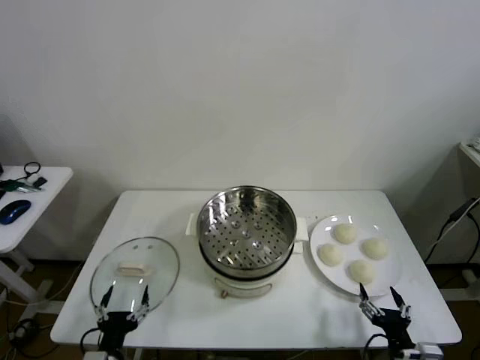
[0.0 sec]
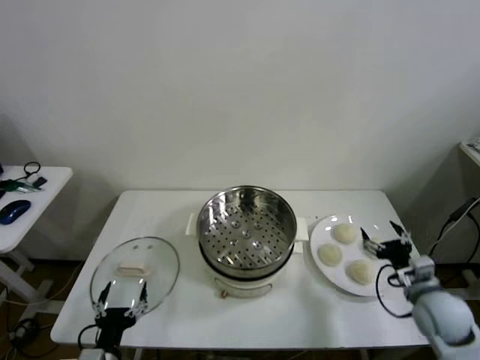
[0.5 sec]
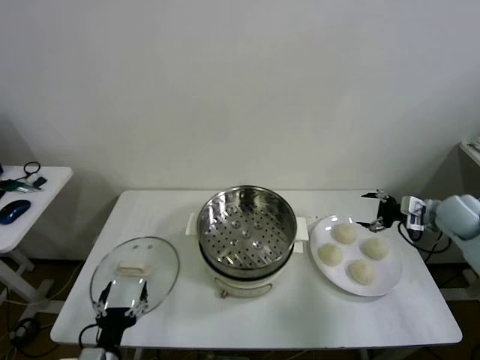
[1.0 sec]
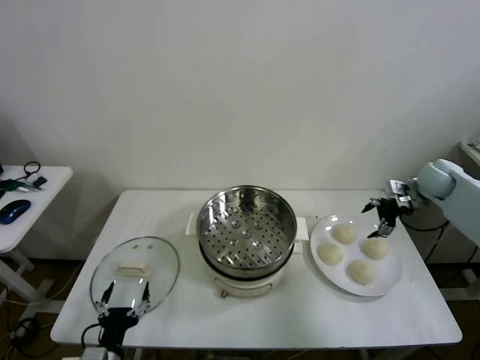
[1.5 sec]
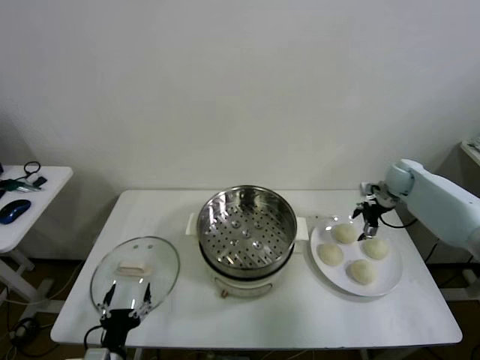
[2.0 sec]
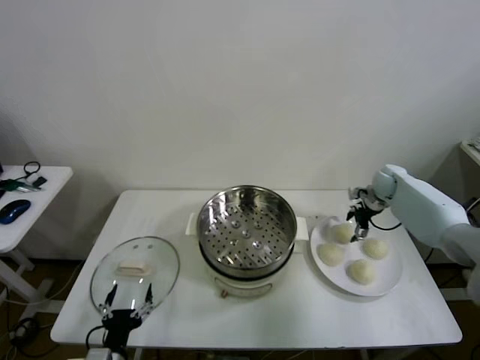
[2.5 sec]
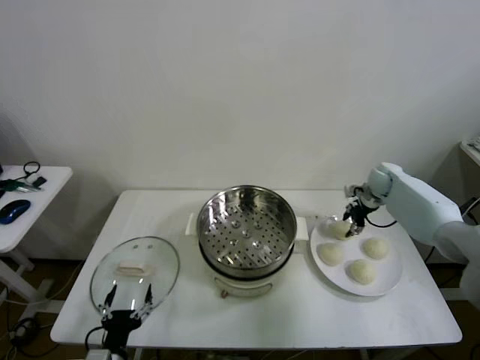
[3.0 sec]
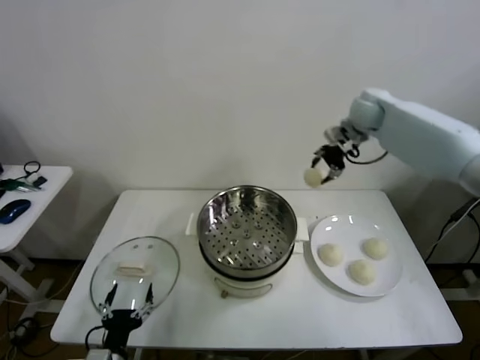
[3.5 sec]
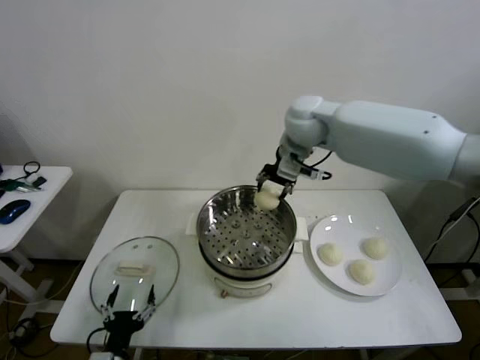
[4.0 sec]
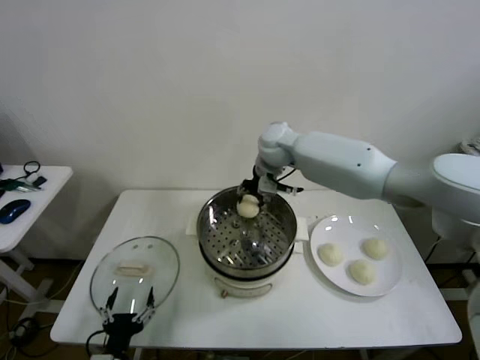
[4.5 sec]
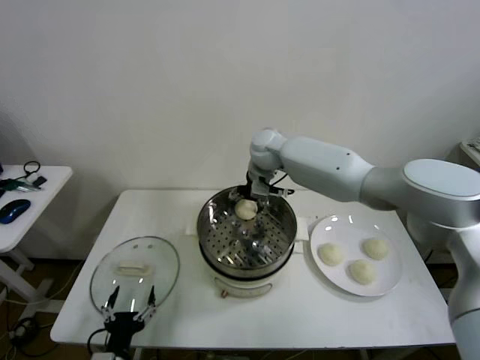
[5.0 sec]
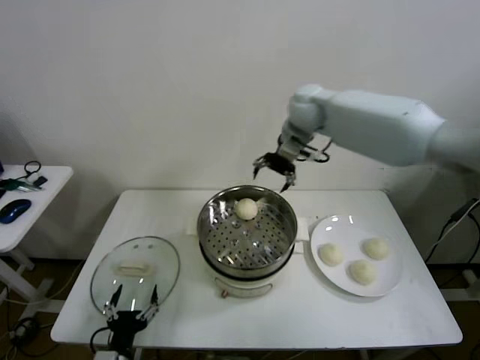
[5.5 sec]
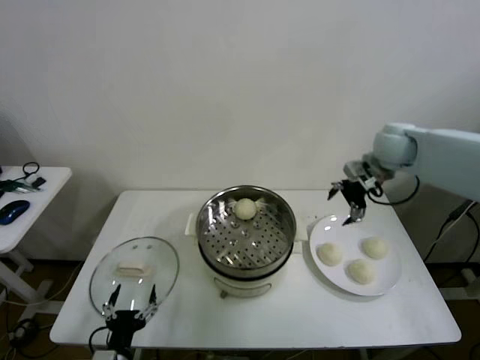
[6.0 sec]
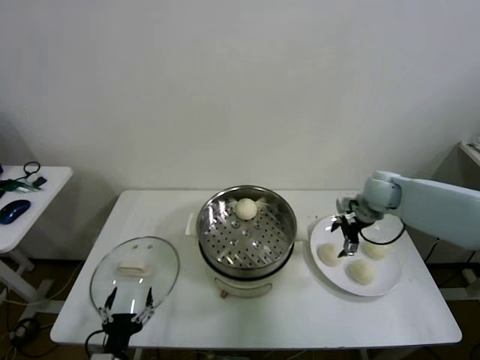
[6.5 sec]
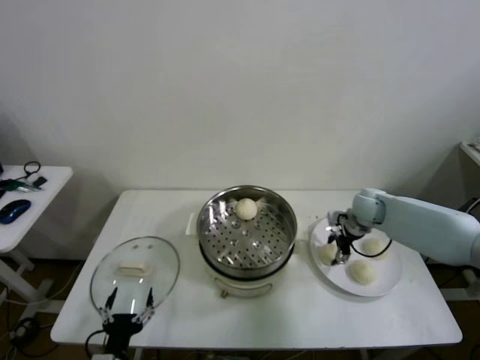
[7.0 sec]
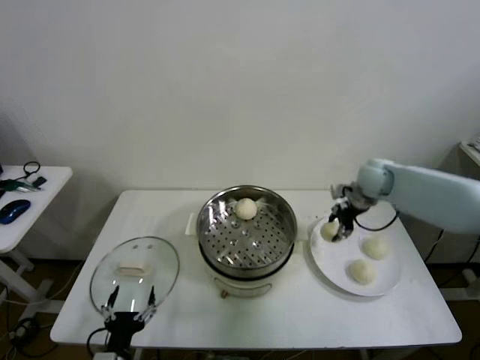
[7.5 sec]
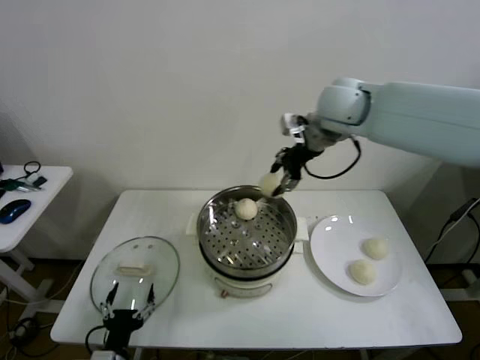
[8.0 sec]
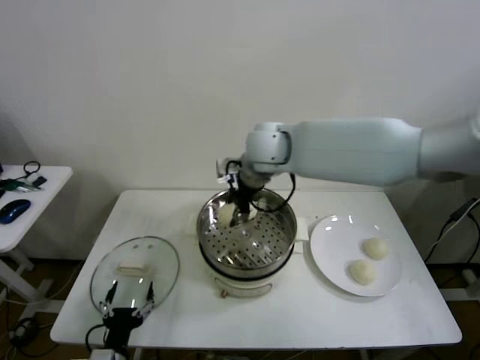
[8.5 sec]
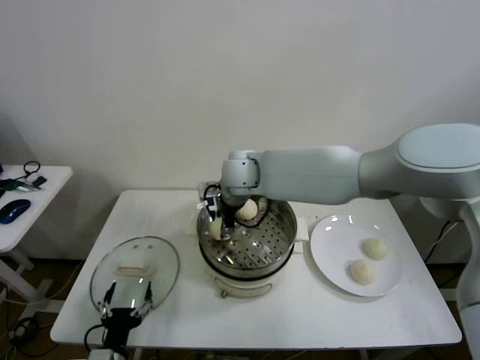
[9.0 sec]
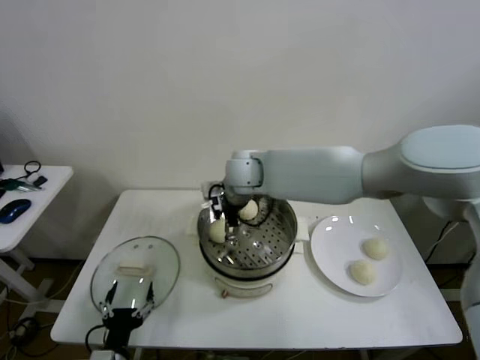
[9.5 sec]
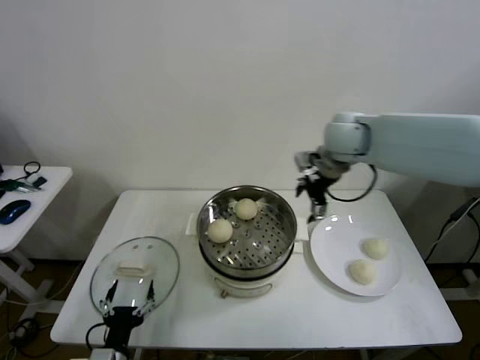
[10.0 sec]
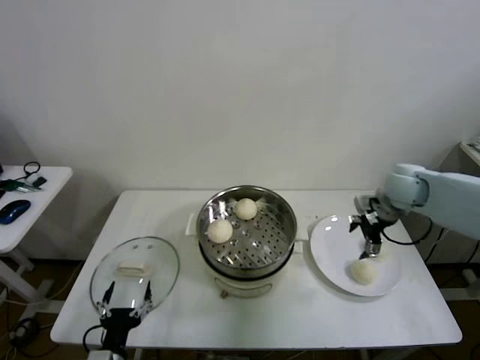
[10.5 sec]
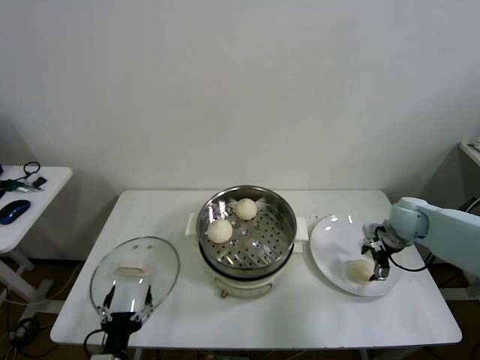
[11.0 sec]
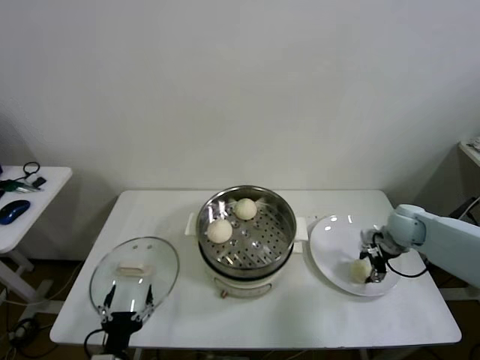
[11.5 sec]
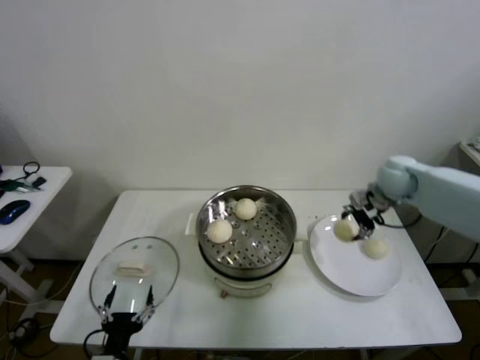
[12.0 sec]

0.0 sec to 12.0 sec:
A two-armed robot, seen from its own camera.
Step, 0.0 sec to 2.5 sec: Grasp the baozi in the plate with right gripper.
Step, 3.0 sec to 4.5 sec: Place the baozi on the steamer with right gripper.
Step, 5.0 sec to 7.0 sec: Grasp the baozi in the plate with right gripper.
Step, 7.5 sec to 9.0 sec: Place the baozi on the steamer with right gripper.
Step, 9.5 sec to 11.5 sec: Grasp the baozi in the plate with right gripper.
2.0 sec to 4.0 sec: The right gripper is displaced to the left and upward by some 35 cm, and closes up.
4.0 sec to 6.0 sec: The right gripper shifts roughly 20 cm to the right, and opens its fingers.
6.0 sec to 8.0 sec: The right gripper is displaced to the left and upward by roughly 25 cm, and closes.
8.0 sec to 10.0 sec: The right gripper moves to the right and downward, about 10 cm, and opens.
10.0 sec to 12.0 sec: The right gripper travels to the right and downward by roughly 15 cm, and closes up.

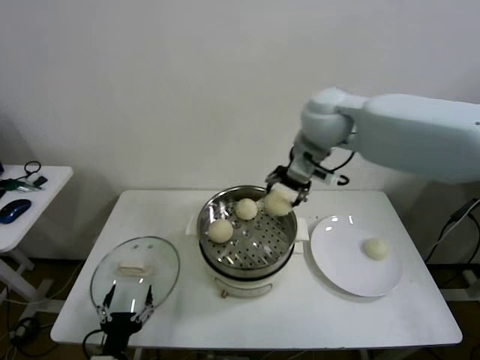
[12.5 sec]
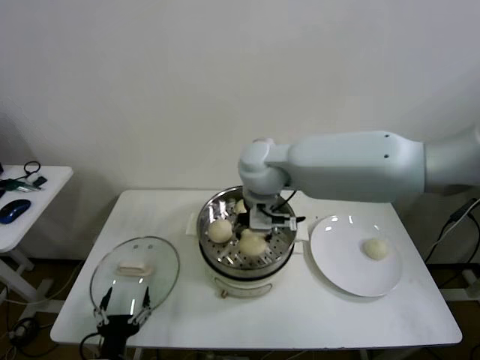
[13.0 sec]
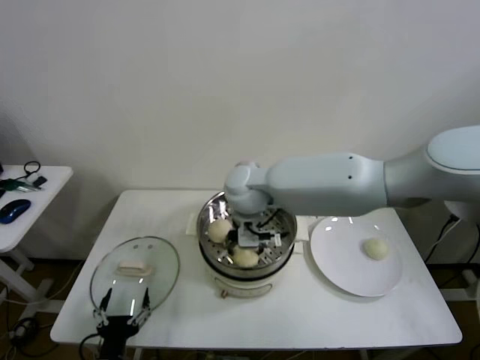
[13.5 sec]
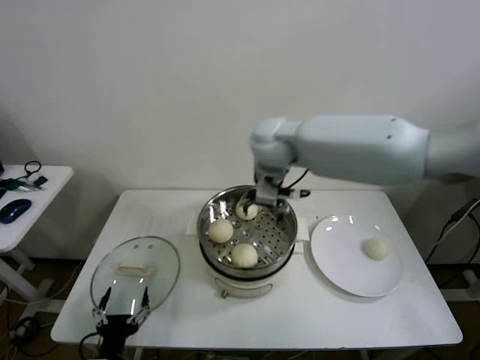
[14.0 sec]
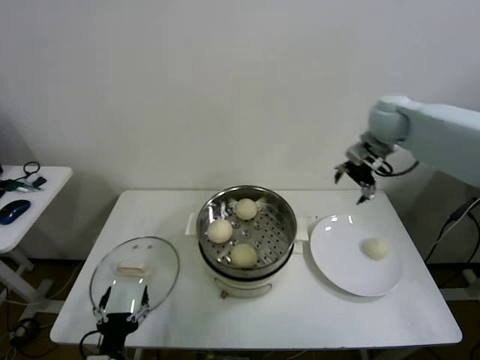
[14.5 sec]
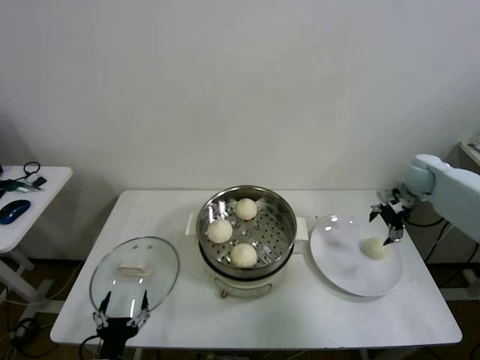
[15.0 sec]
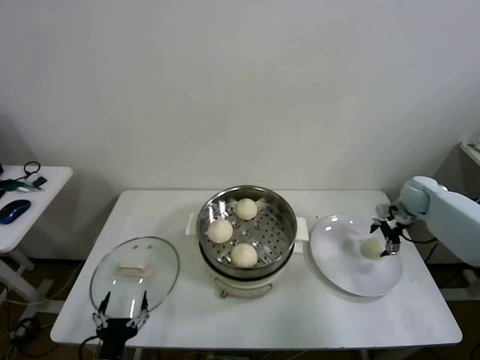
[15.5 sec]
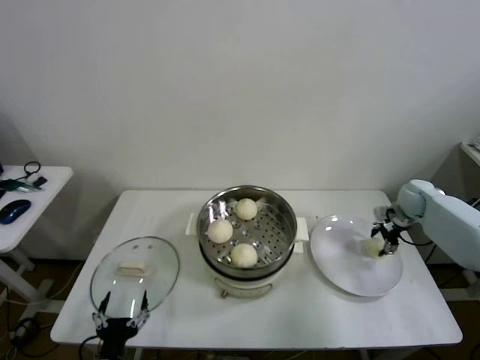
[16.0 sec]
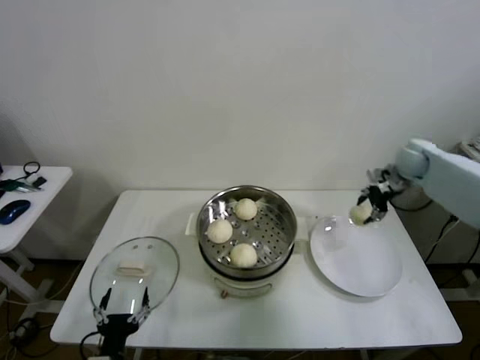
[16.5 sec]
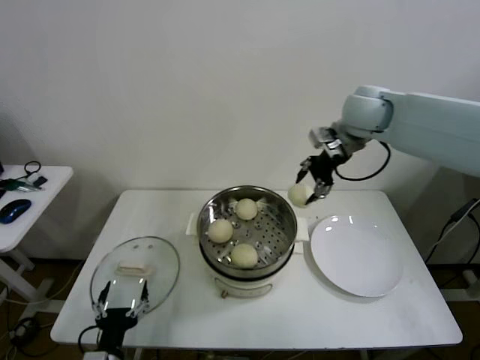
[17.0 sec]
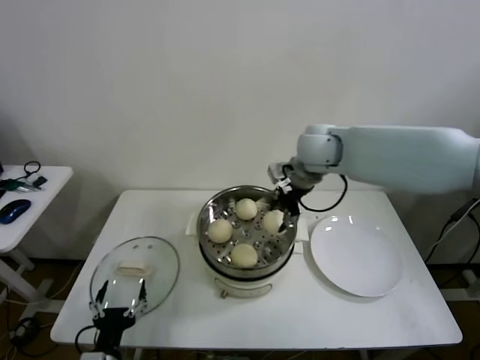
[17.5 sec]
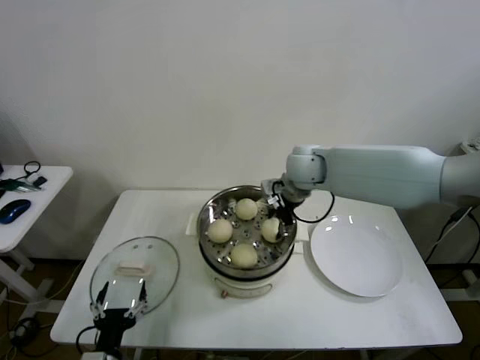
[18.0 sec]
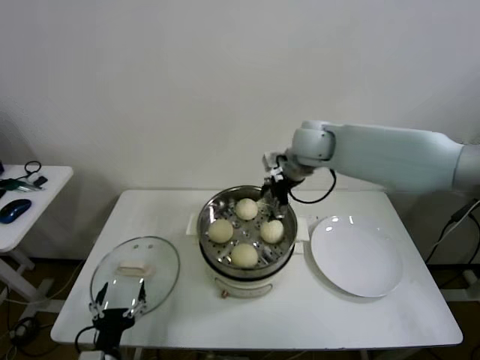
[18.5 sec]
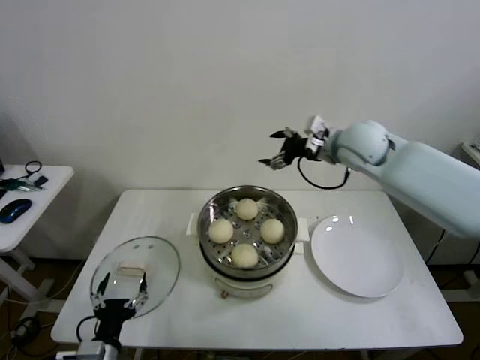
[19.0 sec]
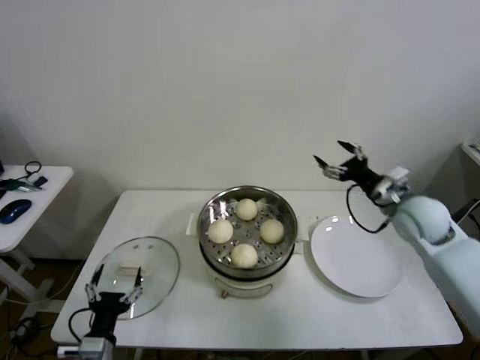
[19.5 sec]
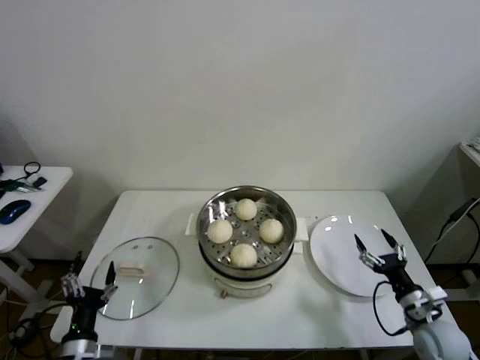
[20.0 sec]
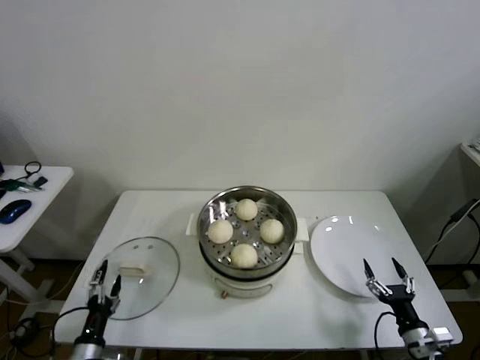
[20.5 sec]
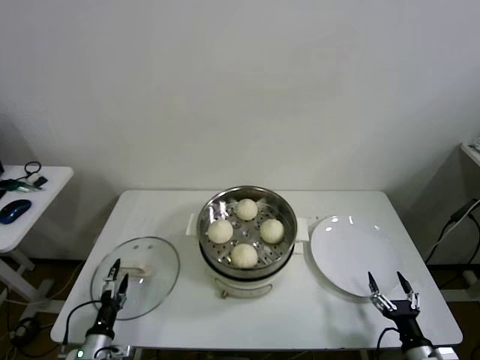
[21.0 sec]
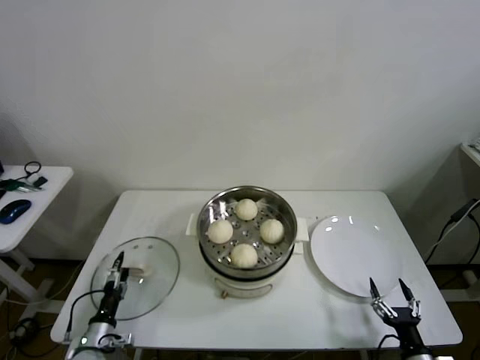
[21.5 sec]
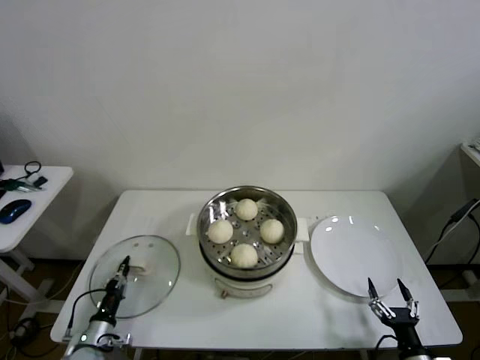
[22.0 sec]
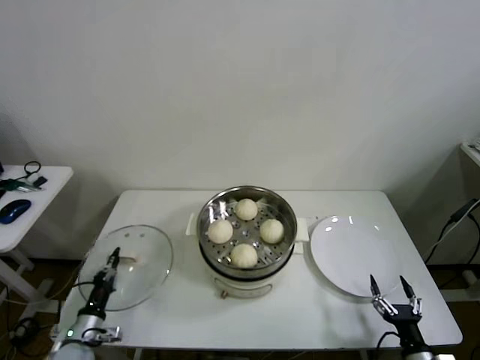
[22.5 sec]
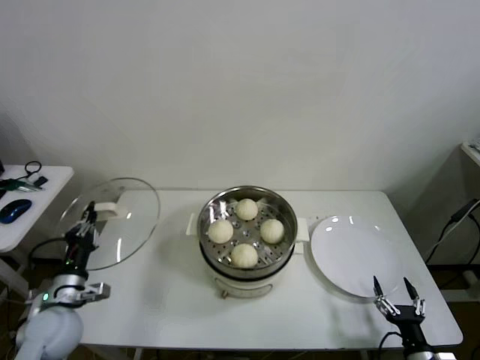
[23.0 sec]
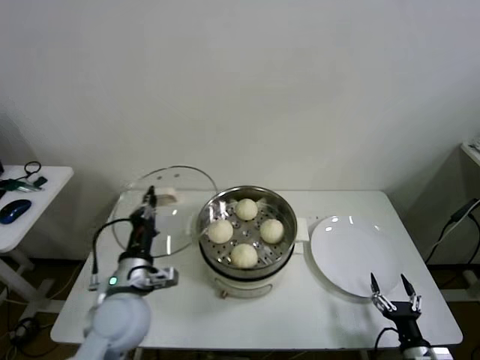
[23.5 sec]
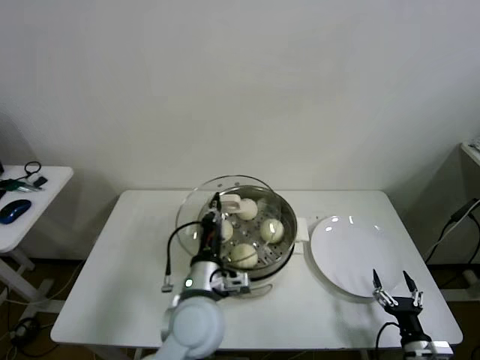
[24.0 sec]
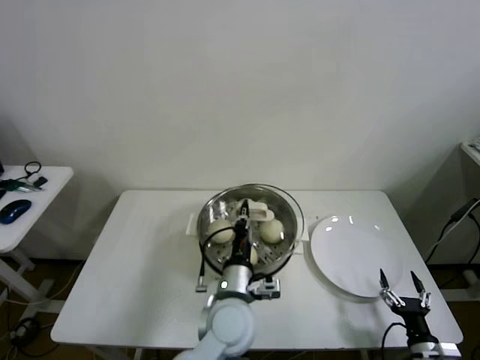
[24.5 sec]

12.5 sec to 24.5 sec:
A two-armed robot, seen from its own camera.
Step, 12.5 sec to 13.5 sec: Place the baozi on the steamer with right gripper.
Step, 14.0 sec to 16.0 sec: Grasp the baozi in the plate with right gripper.
Step, 16.5 sec to 18.0 sec: Place the baozi on the steamer with right gripper.
Step, 18.5 sec to 22.0 sec: Grasp the pot lid with left gripper.
12.5 sec to 14.5 sec: The right gripper travels to the right by some 20 cm, and opens up.
14.5 sec to 16.5 sec: The right gripper travels downward and to the right by roughly 10 cm, and closes up.
16.5 sec to 18.5 sec: The right gripper heads to the left, covering about 25 cm, and opens up.
18.5 sec to 20.5 sec: The left gripper heads to the left and downward, covering roughly 10 cm, while the right gripper is displaced downward, backward and to the right by approximately 60 cm.
20.5 sec to 22.5 sec: The right gripper moves some 5 cm, while the left gripper is displaced forward by roughly 5 cm, and closes its fingers.
22.5 sec to 24.5 sec: The left gripper is displaced to the right and upward by approximately 40 cm.

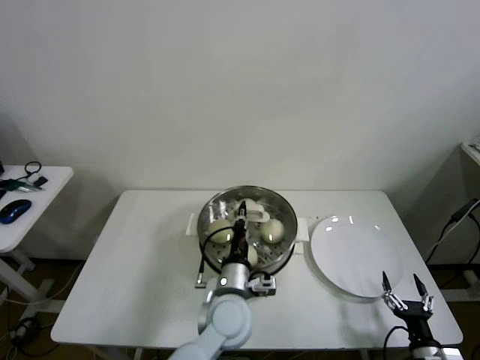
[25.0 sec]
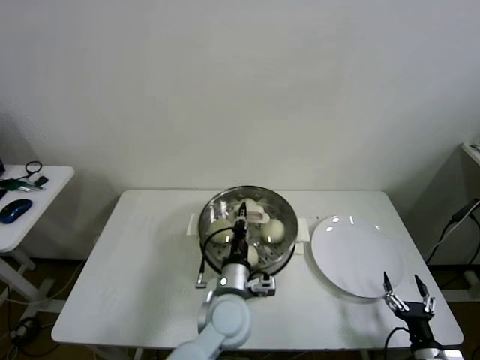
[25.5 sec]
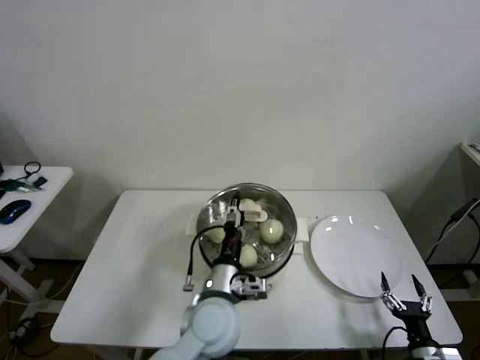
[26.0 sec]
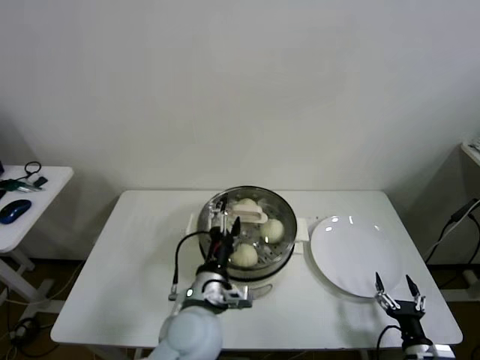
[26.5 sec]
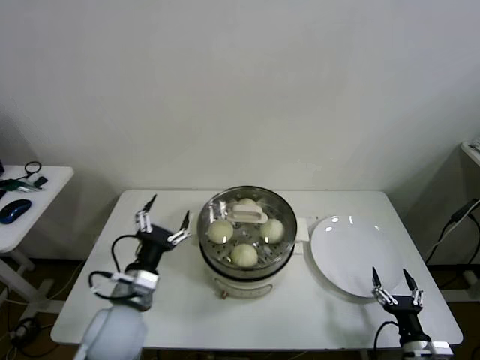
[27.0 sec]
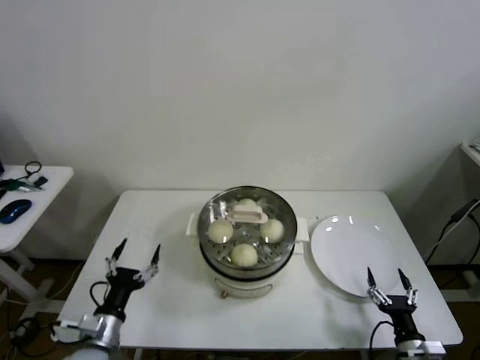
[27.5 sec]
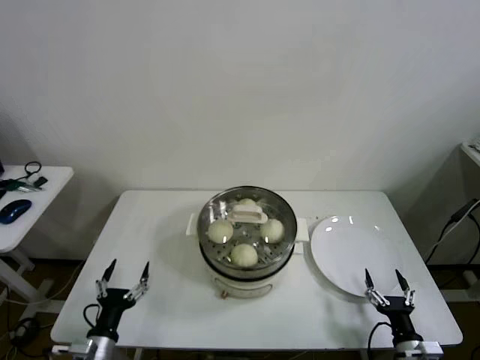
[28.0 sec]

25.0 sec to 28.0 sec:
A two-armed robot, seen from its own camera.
25.0 sec to 26.5 sec: The left gripper is displaced to the left by about 5 cm, and opens up.
26.5 sec to 28.0 sec: The left gripper goes approximately 30 cm to the left and downward.
